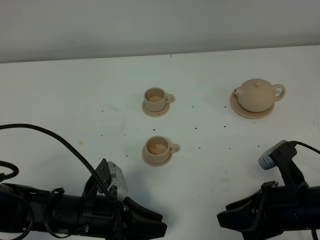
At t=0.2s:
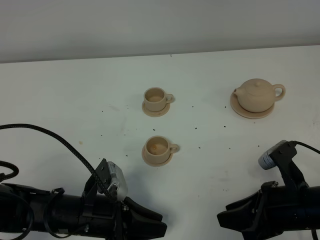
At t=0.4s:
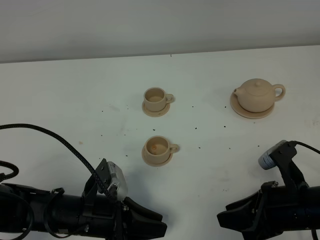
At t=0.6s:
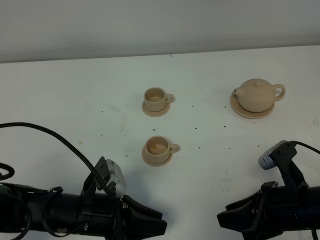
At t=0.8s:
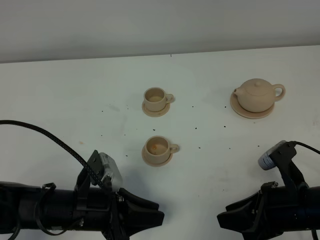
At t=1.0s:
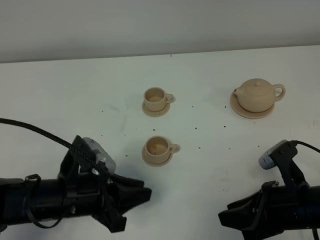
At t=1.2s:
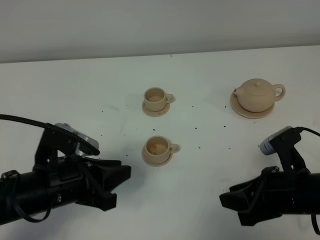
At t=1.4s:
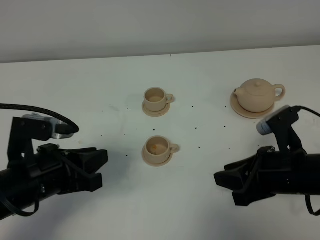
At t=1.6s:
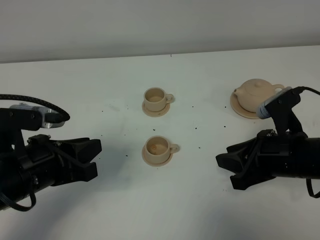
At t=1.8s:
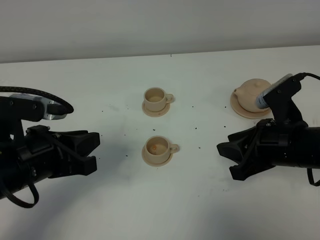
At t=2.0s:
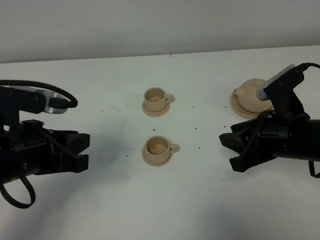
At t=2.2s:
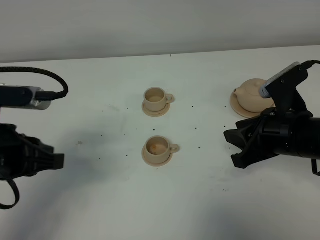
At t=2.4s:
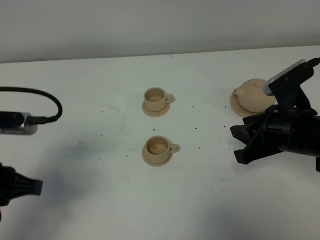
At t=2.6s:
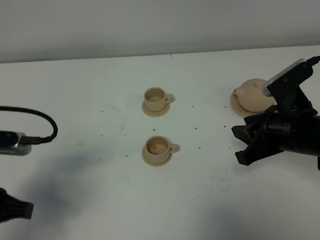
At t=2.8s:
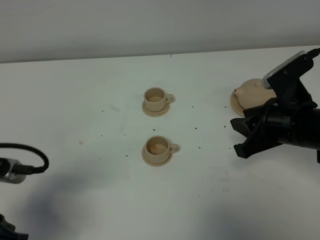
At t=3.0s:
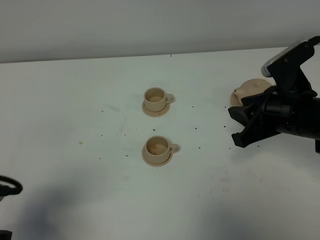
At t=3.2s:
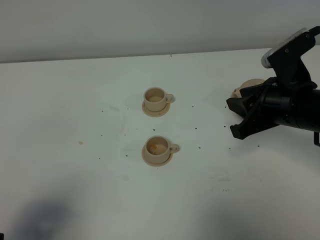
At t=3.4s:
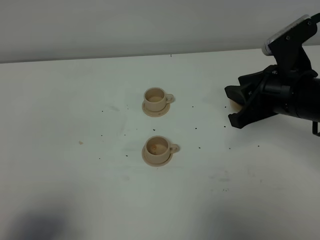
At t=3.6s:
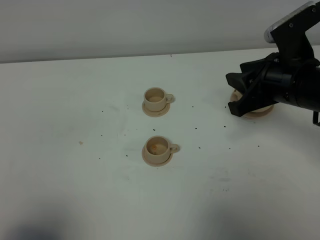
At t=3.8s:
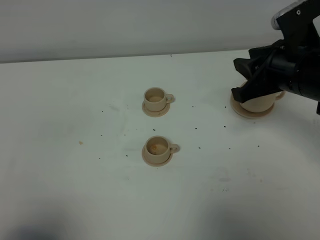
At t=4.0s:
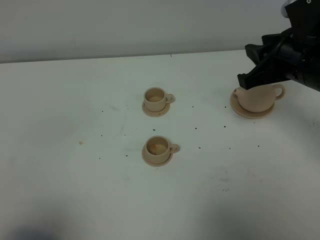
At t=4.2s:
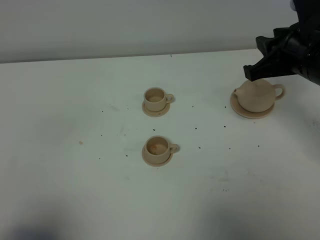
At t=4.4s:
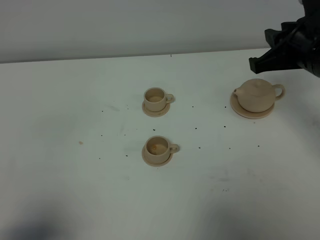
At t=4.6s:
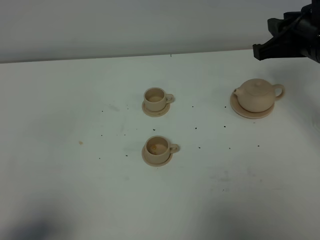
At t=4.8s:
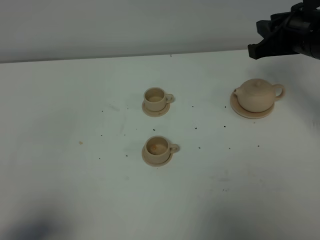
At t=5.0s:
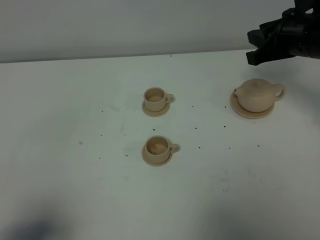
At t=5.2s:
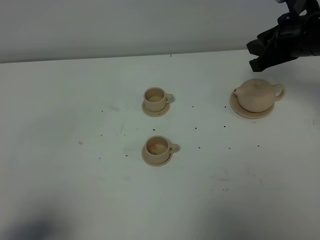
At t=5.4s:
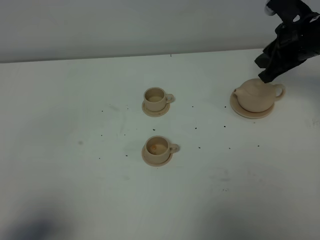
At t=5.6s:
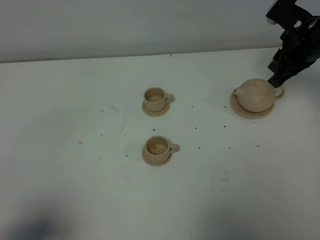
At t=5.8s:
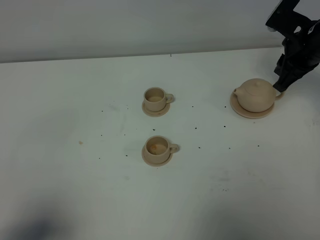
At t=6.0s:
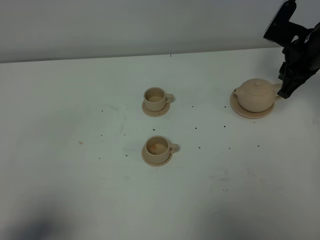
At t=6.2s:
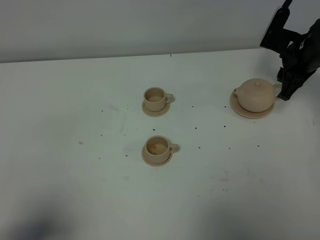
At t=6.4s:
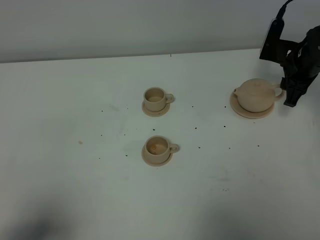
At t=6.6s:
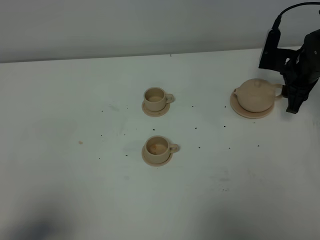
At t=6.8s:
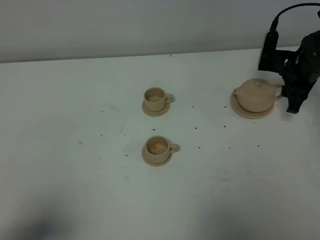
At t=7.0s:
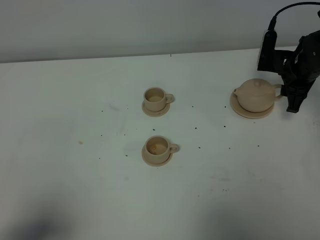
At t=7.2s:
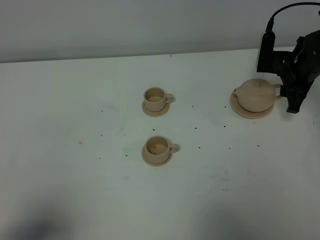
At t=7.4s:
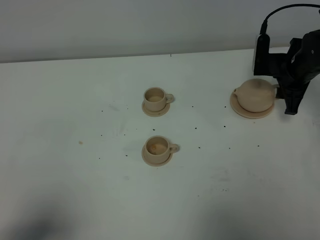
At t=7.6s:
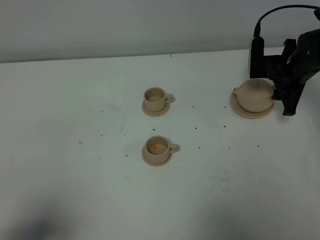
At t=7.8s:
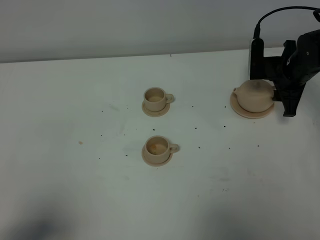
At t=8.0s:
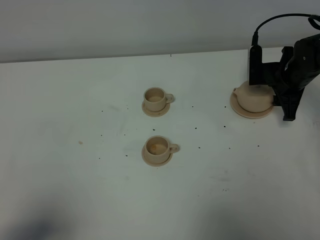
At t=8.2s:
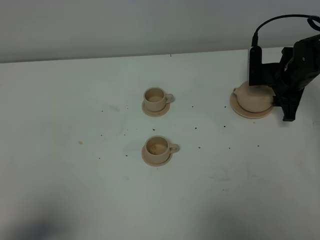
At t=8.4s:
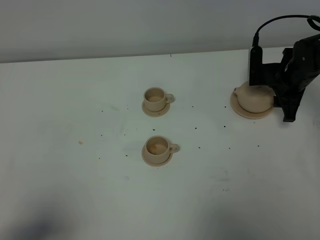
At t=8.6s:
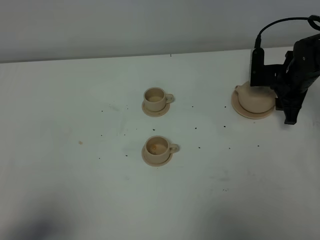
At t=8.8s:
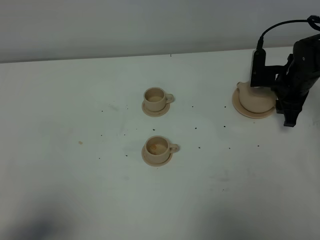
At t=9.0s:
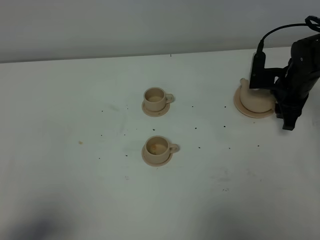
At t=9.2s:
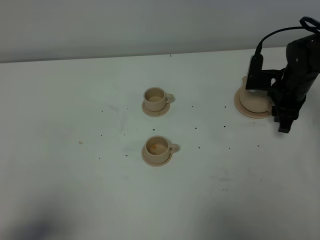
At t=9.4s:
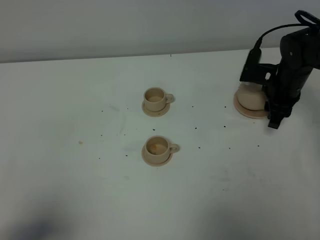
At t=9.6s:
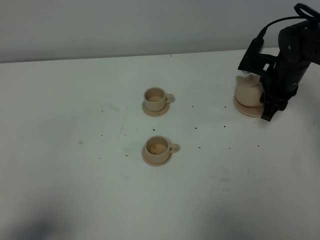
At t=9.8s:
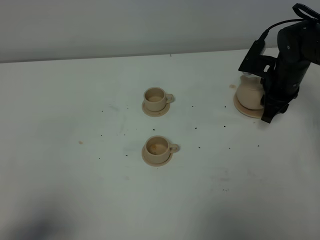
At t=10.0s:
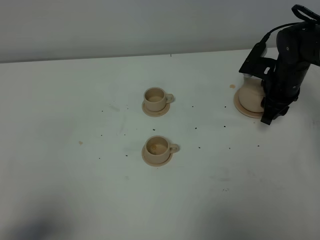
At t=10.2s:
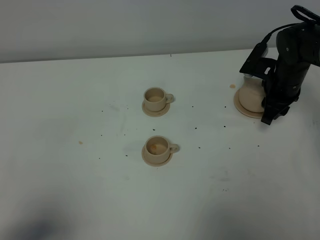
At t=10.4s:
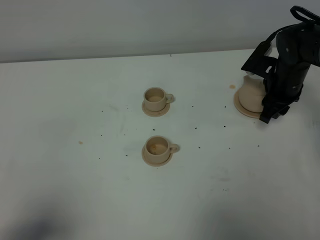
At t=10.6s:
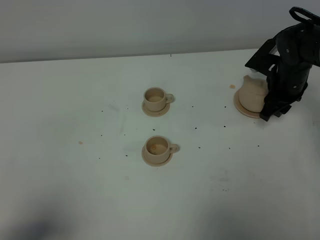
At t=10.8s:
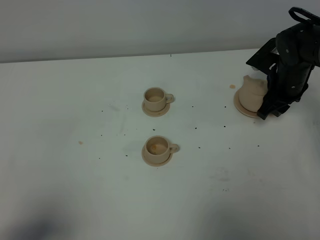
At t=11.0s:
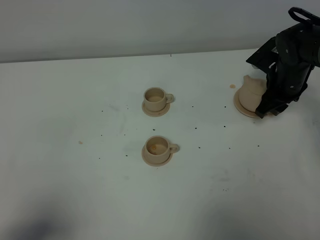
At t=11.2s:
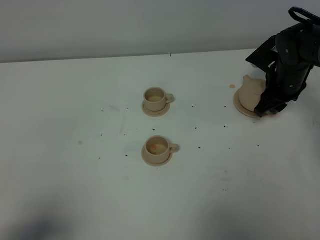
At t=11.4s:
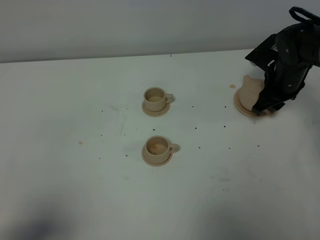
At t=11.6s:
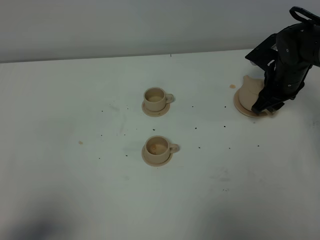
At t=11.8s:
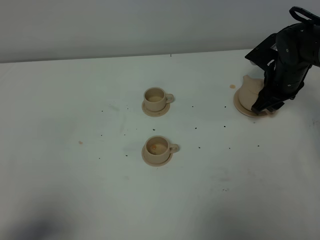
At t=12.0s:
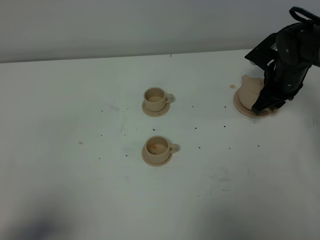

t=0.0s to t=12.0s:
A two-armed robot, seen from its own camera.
Task of the whole recording: grasp the brown teapot and pour the tea into the two brown teacups one by one, put the brown teapot back in its original place.
t=0.0s to t=1.6s: The left gripper is displaced upward and to the left by some 15 cm, while the right gripper goes about 5 cm forward.
t=1.6s to t=3.0s: The right gripper ends up roughly 5 cm from where it was. Meanwhile the left gripper is displaced backward and to the left by about 10 cm.
t=3.0s to t=4.4s: The left gripper moves backward, some 5 cm. Meanwhile the right gripper moves upward, approximately 5 cm.
t=4.4s to t=6.0s: The right gripper travels forward and downward by approximately 15 cm.
t=6.0s to t=7.6s: The right gripper moves downward, some 5 cm, and opens up.
t=7.6s to t=9.0s: There are only small adjustments of the grippers.
t=10.4s to t=12.0s: The grippers stay close to where they were, moving slightly.

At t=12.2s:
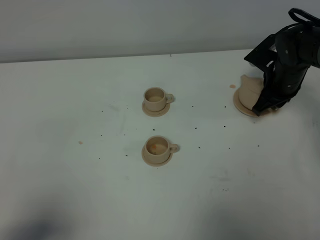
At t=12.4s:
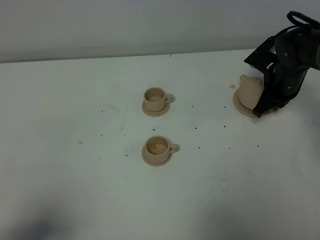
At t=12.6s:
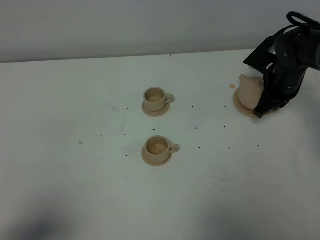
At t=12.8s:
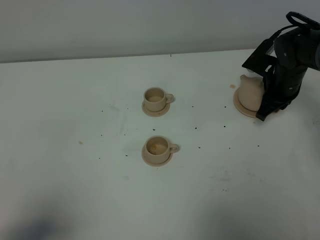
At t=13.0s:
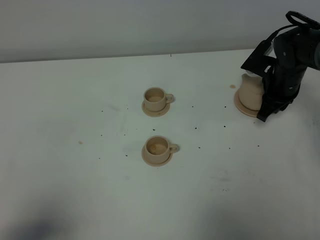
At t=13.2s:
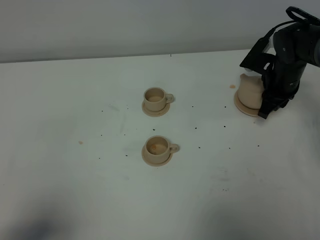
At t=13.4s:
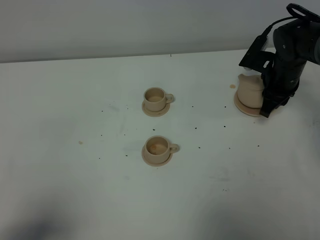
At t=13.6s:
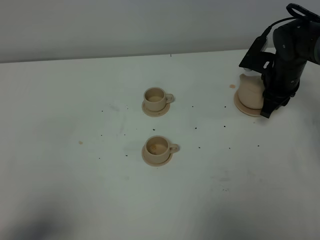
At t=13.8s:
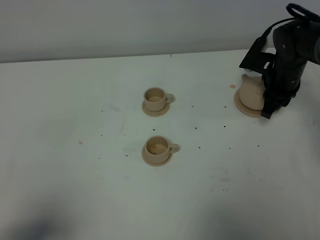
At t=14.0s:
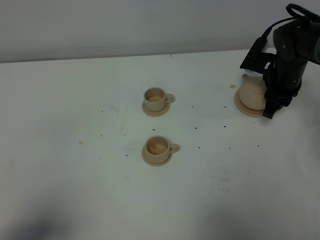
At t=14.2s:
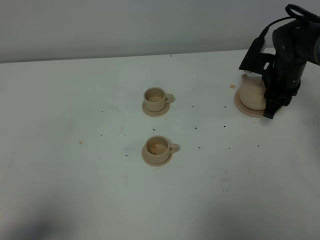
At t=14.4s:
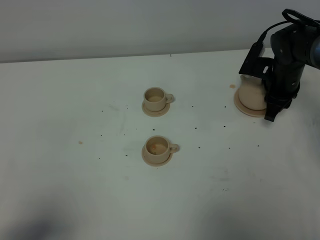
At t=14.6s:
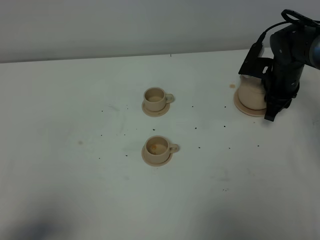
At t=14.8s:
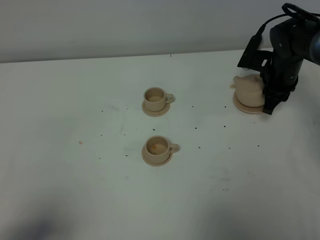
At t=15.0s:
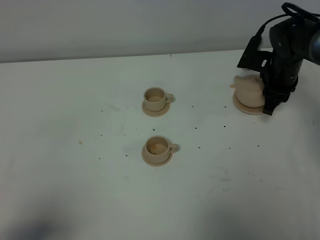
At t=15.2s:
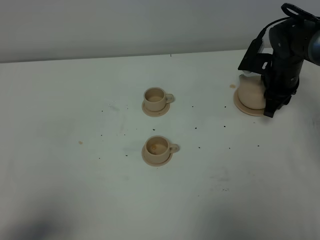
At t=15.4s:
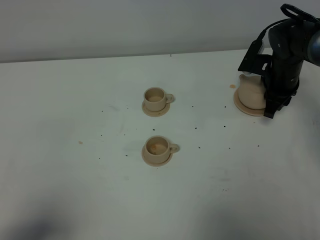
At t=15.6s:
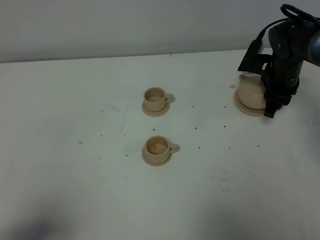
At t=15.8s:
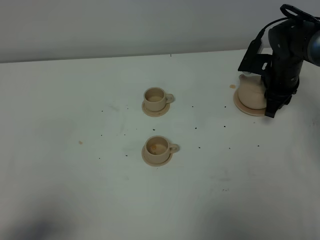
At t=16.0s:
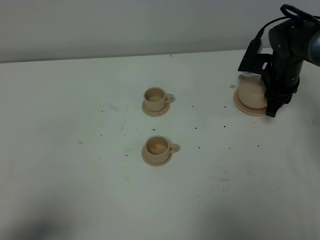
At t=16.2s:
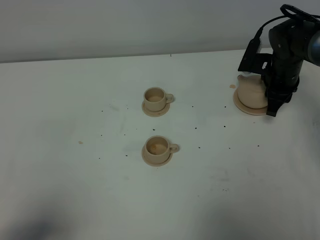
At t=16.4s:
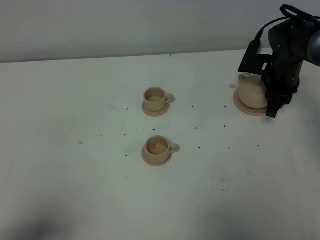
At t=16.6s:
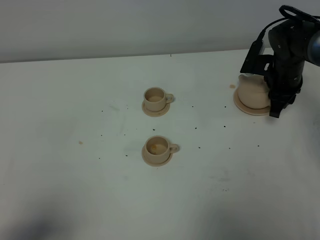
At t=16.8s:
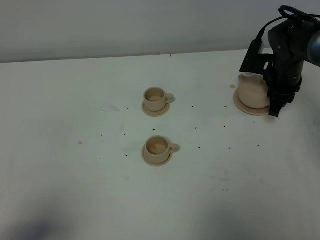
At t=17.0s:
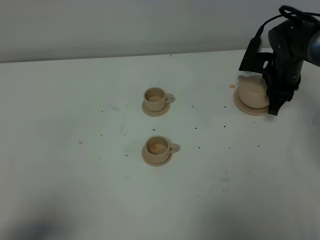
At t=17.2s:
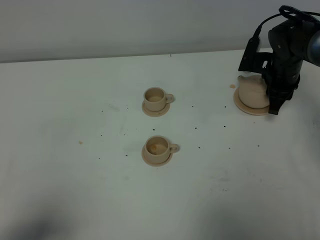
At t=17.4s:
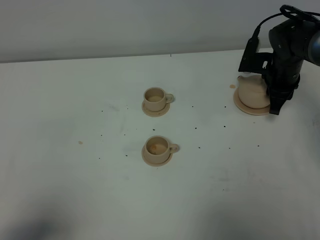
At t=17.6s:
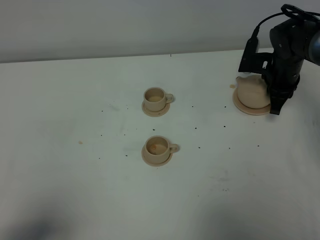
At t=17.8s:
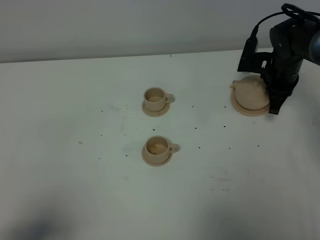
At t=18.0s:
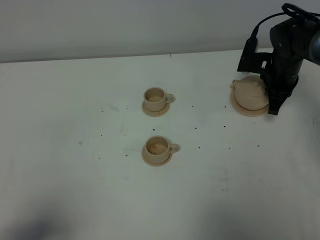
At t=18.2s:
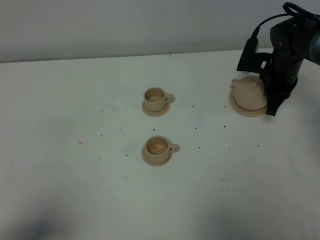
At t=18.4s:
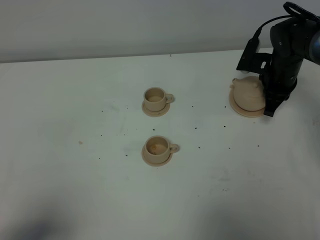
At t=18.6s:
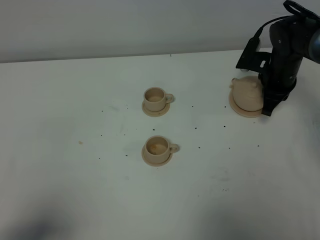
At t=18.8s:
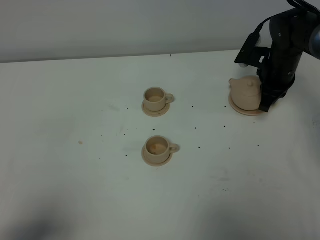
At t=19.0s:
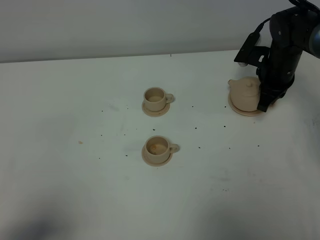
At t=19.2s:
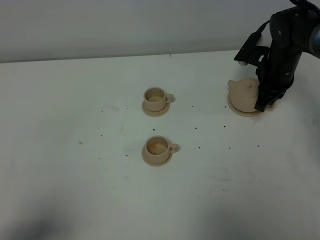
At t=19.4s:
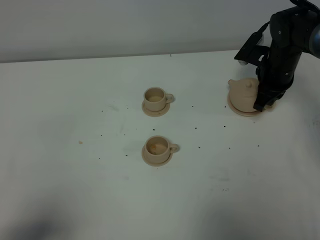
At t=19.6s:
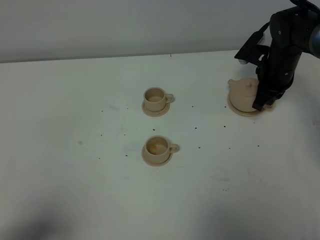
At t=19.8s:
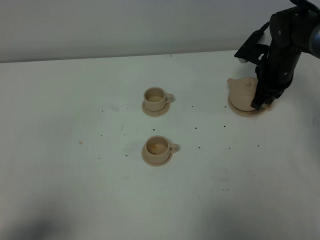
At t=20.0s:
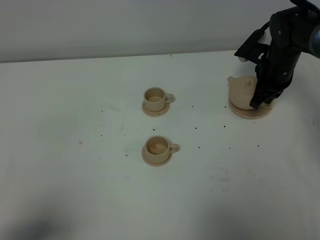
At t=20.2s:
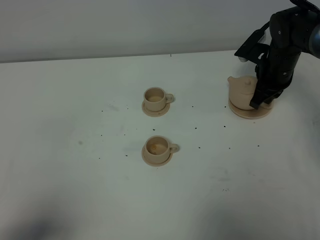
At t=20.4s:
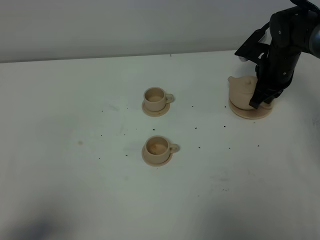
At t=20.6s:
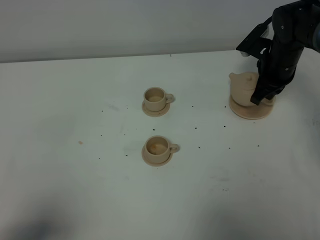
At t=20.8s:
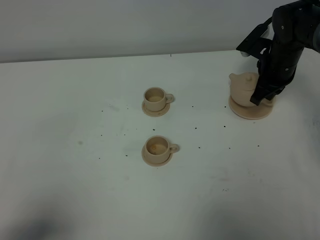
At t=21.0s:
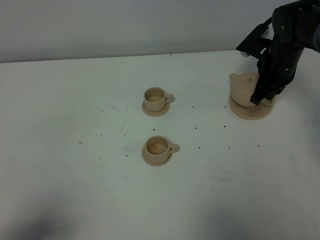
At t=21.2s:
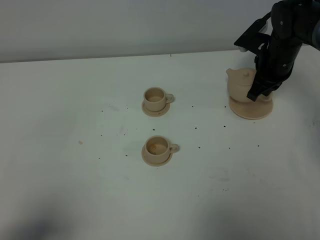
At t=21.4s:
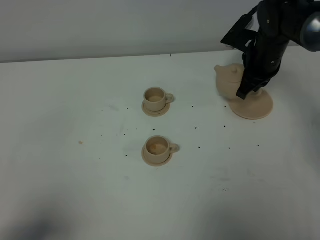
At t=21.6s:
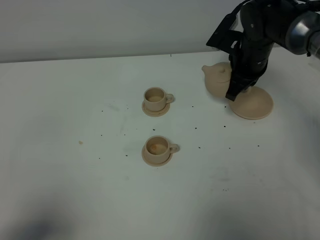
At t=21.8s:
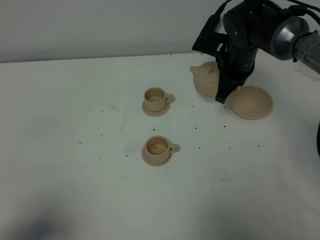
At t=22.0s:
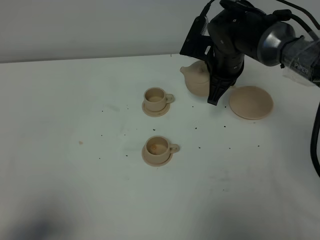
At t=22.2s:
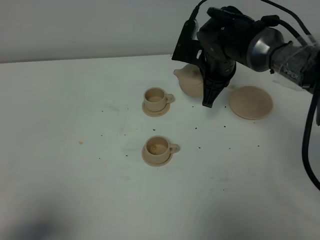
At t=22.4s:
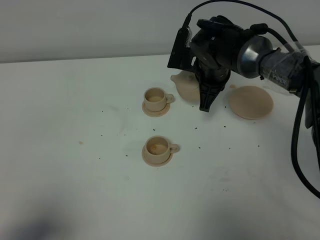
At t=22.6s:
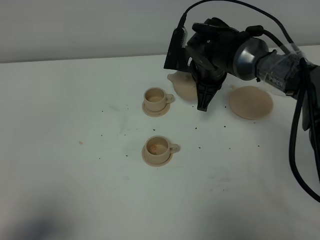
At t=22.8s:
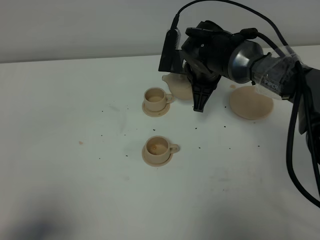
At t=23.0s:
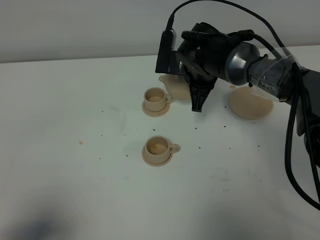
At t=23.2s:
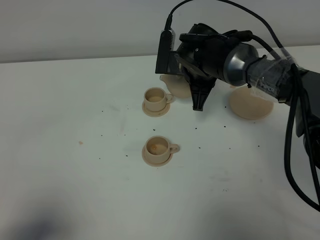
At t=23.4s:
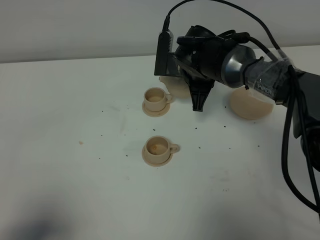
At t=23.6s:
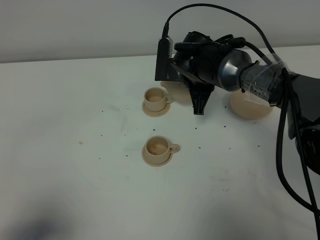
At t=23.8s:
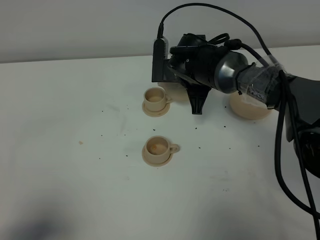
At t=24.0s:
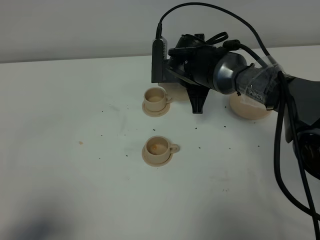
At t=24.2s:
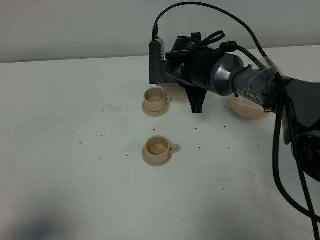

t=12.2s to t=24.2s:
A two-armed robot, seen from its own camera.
Task of the whole recording: grasp the brown teapot and pour the tea into the two brown teacups one by one, put the brown teapot back in its original place.
Step, t=12.2s to t=19.8s: Pick up the teapot with the right gripper.
t=12.2s to t=13.8s: There are only small adjustments of the grippers.
t=13.8s to t=15.2s: The grippers move only a little.
t=15.2s to t=16.6s: Neither gripper changes place.
t=16.6s to t=18.2s: The right gripper closes.
t=18.2s to t=21.2s: The grippers stay close to where they were, moving slightly.
t=21.2s to t=22.6s: The right gripper is displaced to the left by approximately 15 cm.
t=22.6s to t=24.2s: The grippers stay close to where they were, moving slightly.
